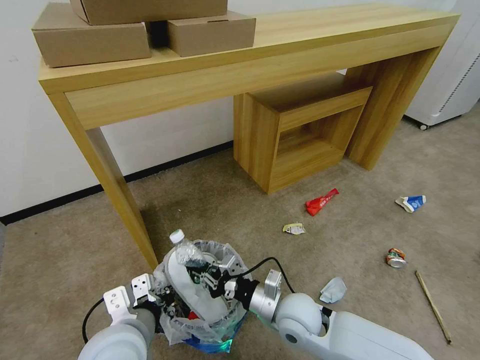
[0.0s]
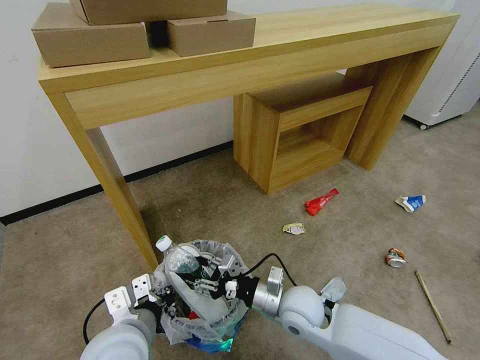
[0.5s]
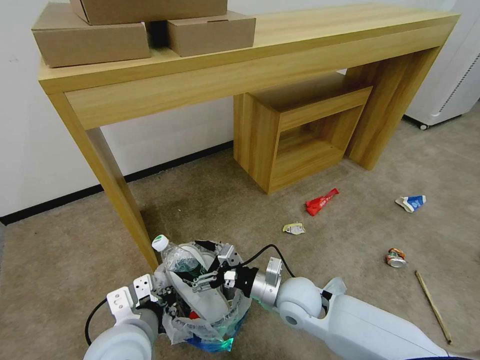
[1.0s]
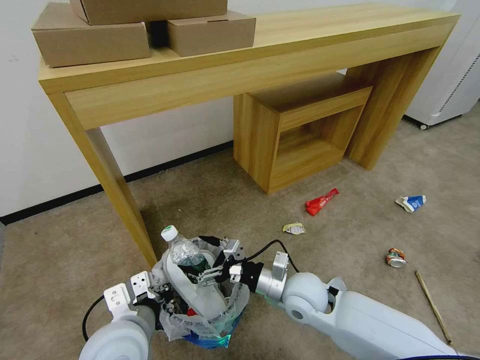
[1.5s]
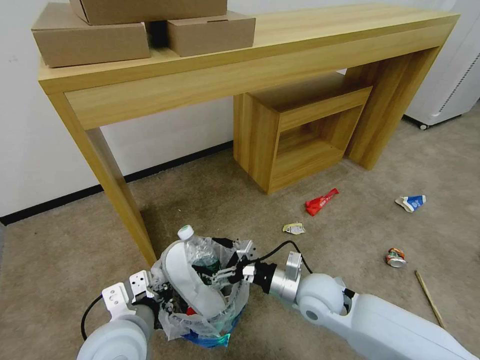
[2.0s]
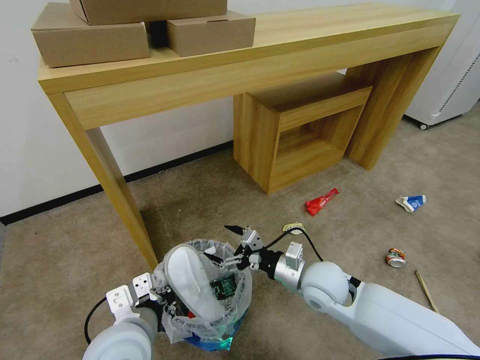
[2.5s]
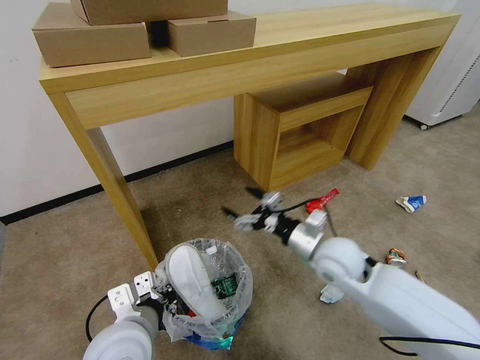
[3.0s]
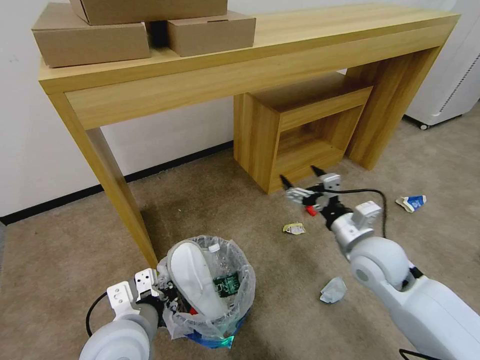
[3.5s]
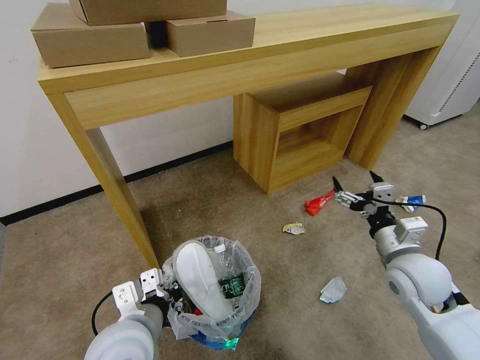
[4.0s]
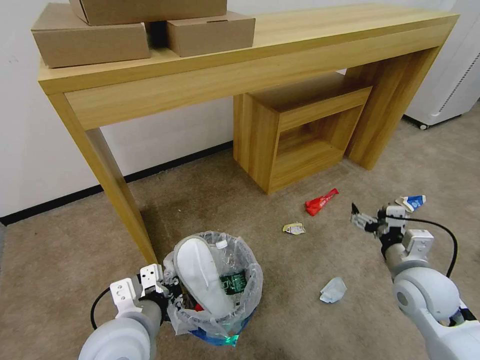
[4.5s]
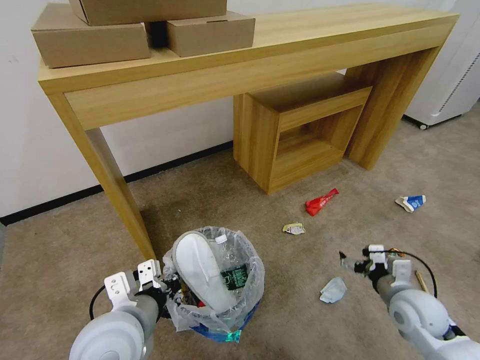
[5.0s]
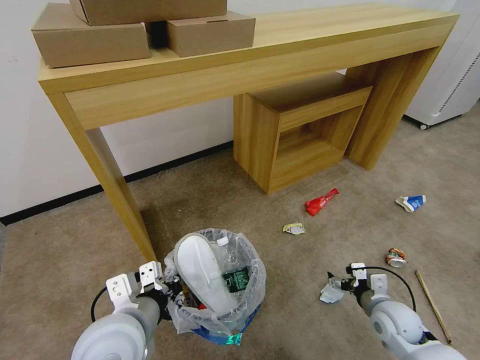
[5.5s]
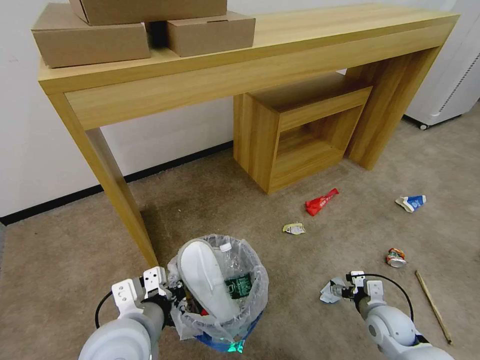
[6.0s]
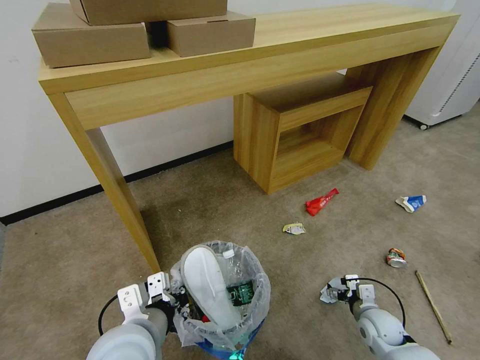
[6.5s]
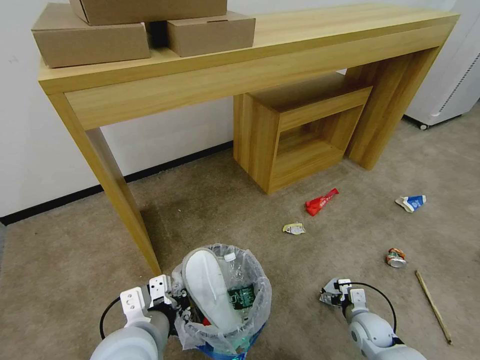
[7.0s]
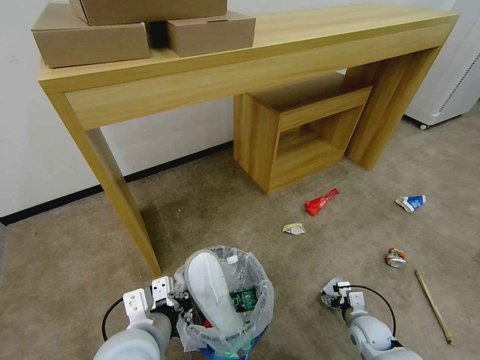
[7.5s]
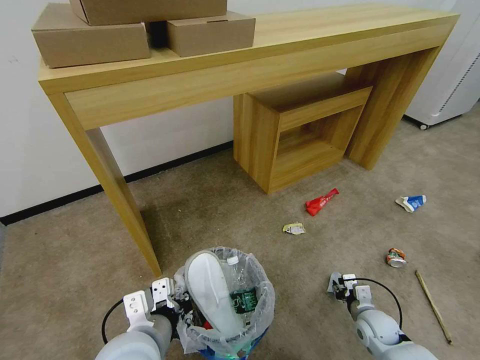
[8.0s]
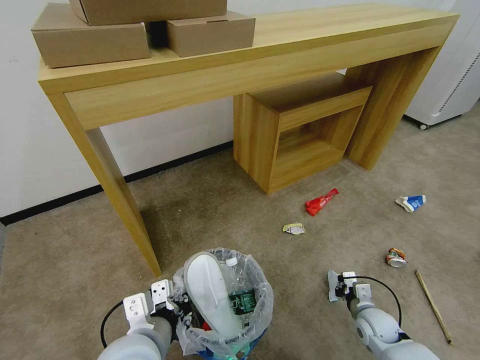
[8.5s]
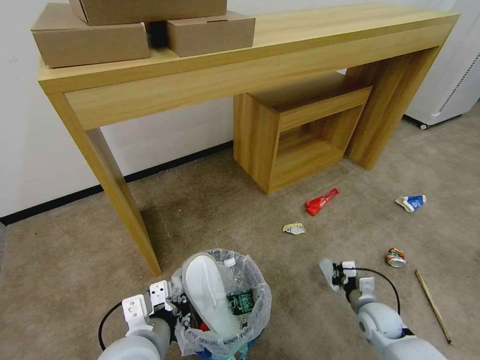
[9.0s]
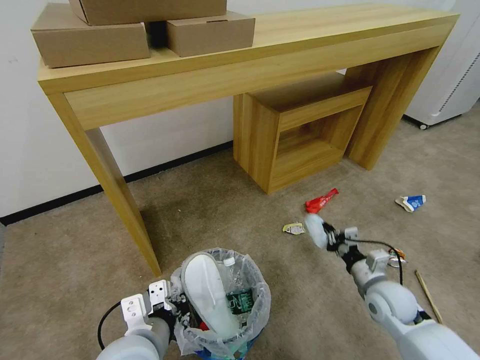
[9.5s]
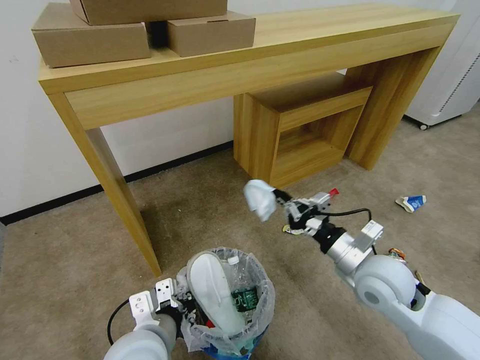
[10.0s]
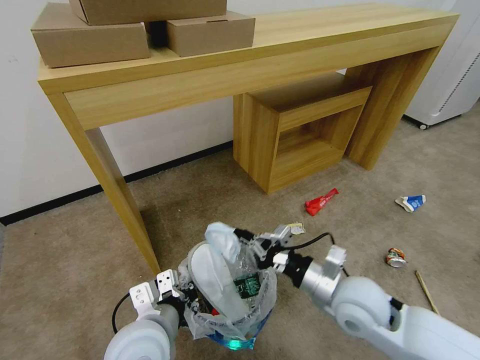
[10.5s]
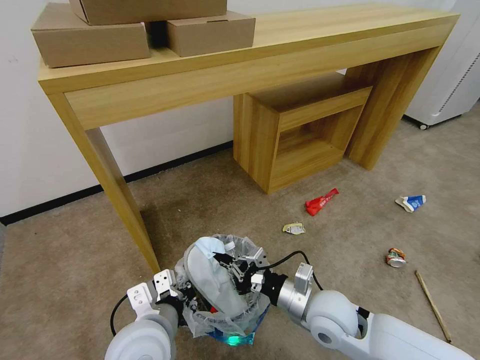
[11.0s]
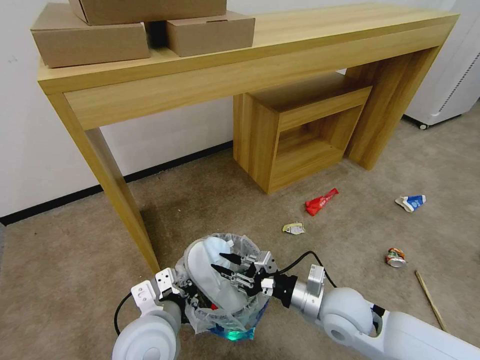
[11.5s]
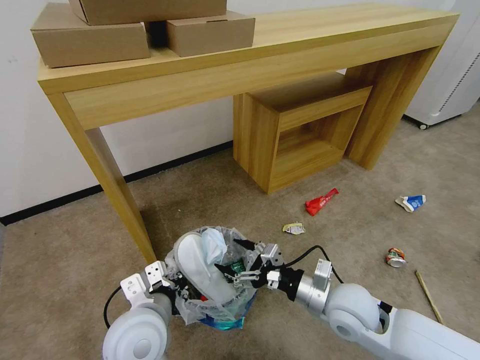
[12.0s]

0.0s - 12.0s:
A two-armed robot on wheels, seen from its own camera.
Task of the whole recording: Pick up the trash bin and place the garbage on the floor into it.
0.0s - 2.0s: The right gripper shifts by some 5 cm, and opens up.
2.0s - 4.0s: The right gripper moves to the right and upward, roughly 20 cm.
4.0s - 6.0s: The right gripper goes approximately 20 cm downward.
6.0s - 8.0s: The right gripper heads downward, covering some 5 cm, and closes.
8.0s - 10.0s: The right gripper moves upward, about 25 cm, and closes.
10.0s - 12.0s: The right gripper goes roughly 5 cm downward, and opens up.

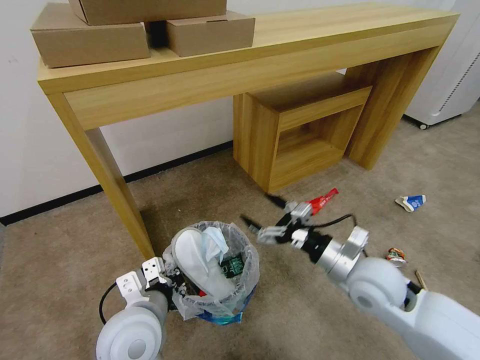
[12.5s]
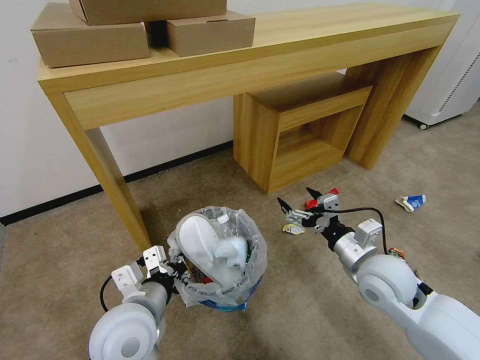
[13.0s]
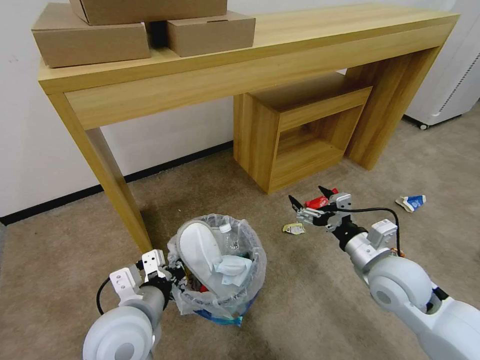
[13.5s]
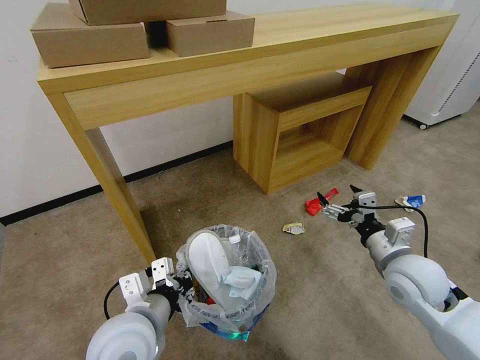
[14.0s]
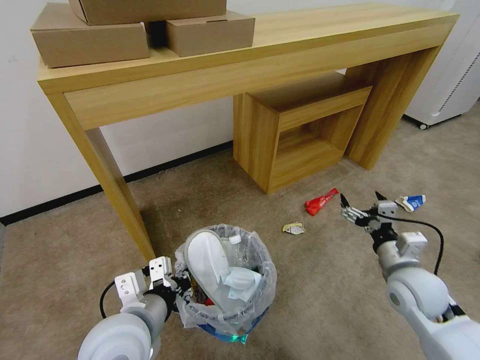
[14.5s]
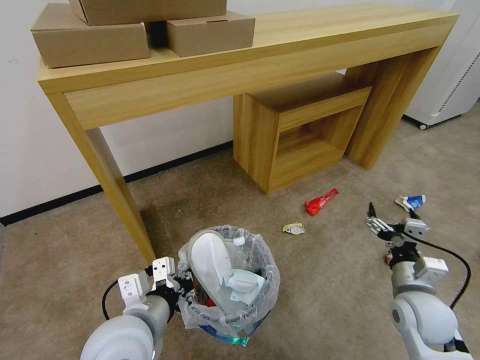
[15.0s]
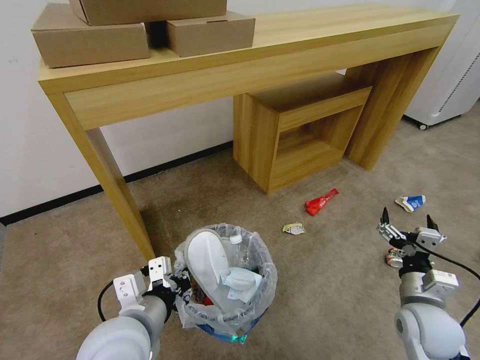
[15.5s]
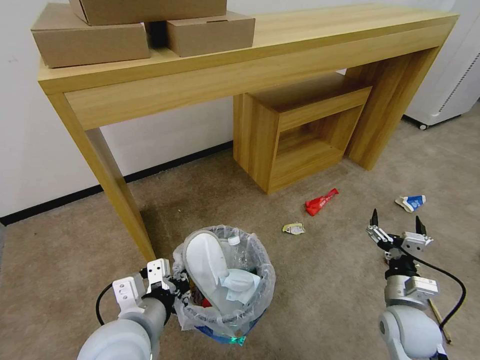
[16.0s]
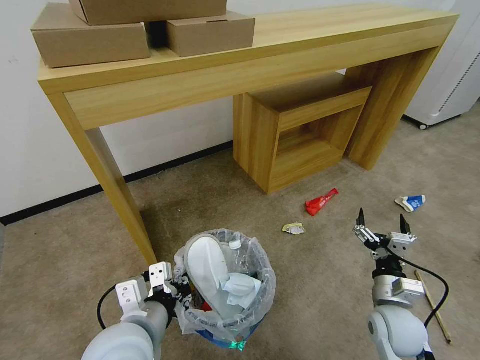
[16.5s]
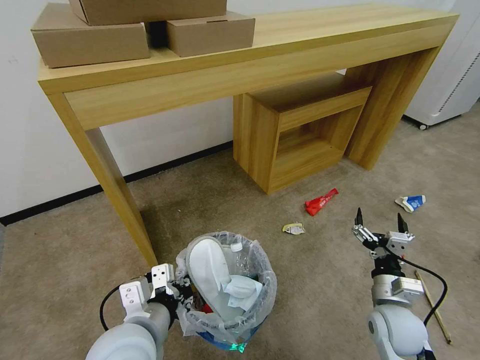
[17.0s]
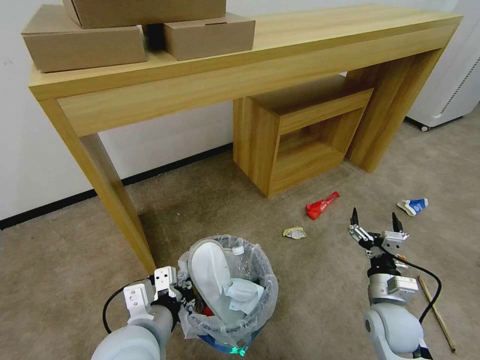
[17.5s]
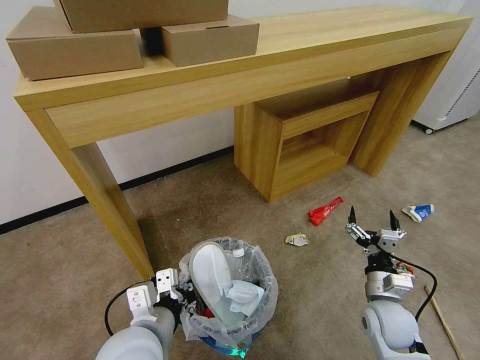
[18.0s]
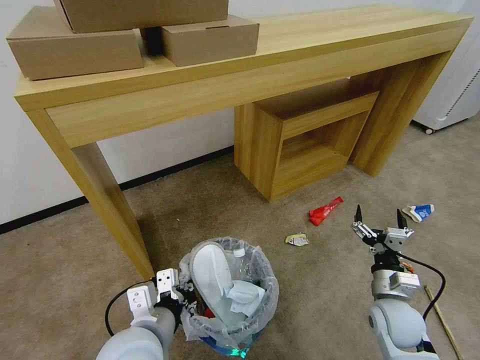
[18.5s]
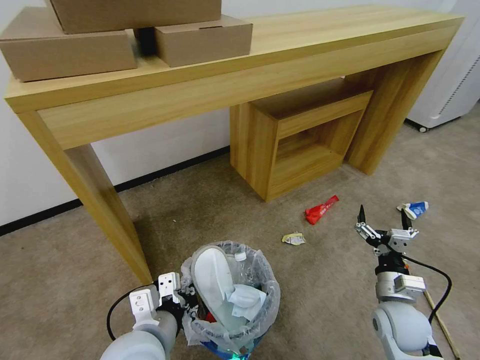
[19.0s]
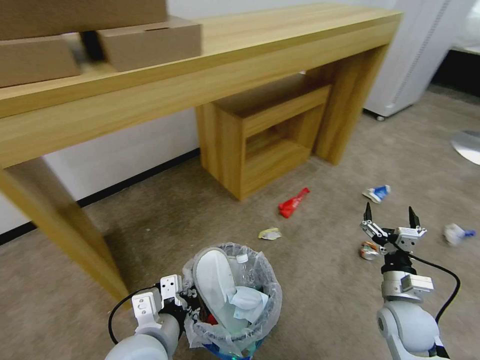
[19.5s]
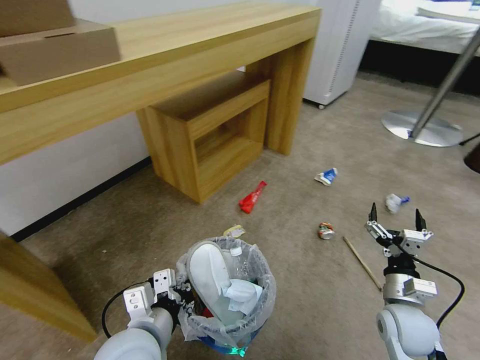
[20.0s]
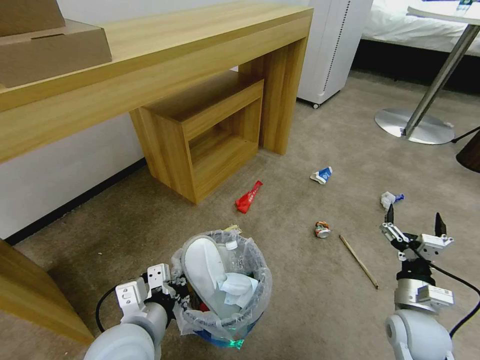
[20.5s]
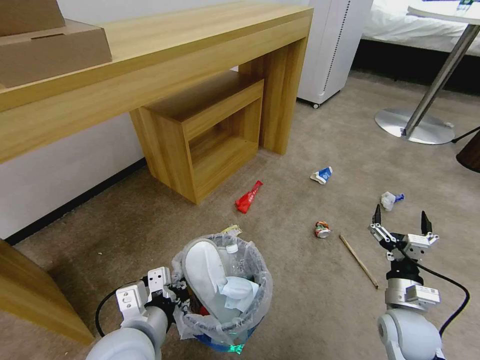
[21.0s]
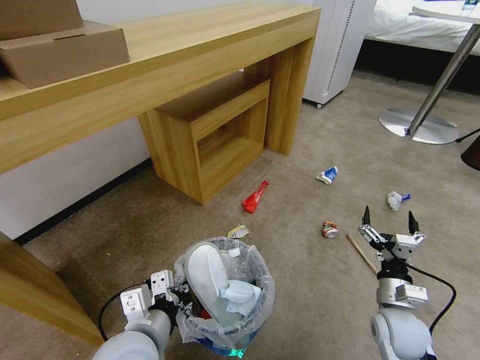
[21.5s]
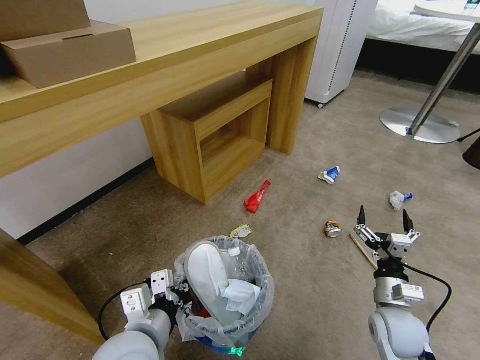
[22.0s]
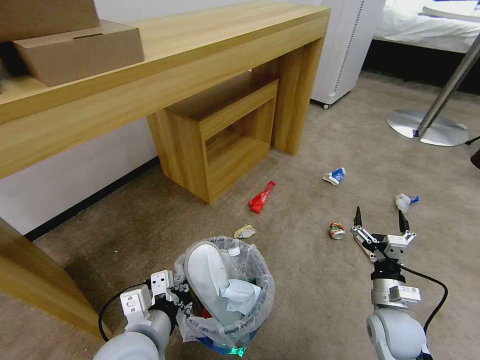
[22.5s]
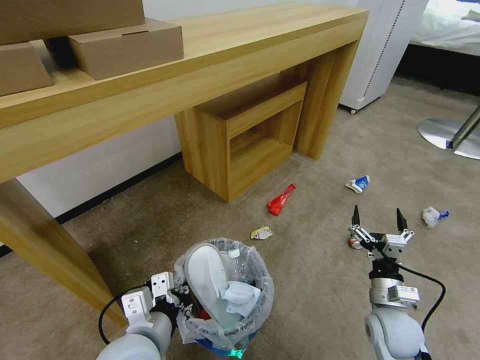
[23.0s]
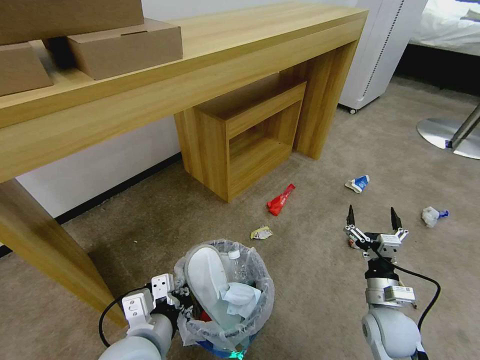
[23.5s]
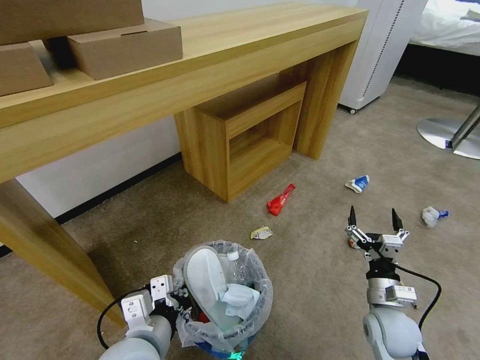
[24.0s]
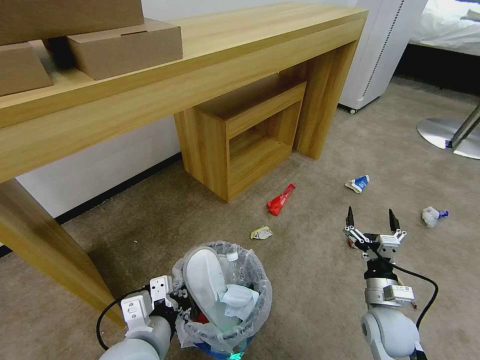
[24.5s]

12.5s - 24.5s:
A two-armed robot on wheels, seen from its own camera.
Task of the whole recording: Pick up the trash bin and place the garbage on the floor into it.
12.5s - 14.5s: The right gripper heads to the right, covering about 10 cm.
14.5s - 16.5s: The right gripper heads downward and backward, covering some 10 cm.

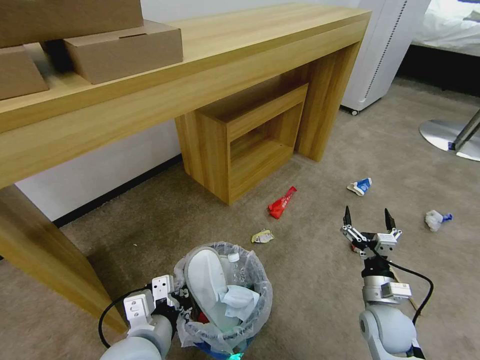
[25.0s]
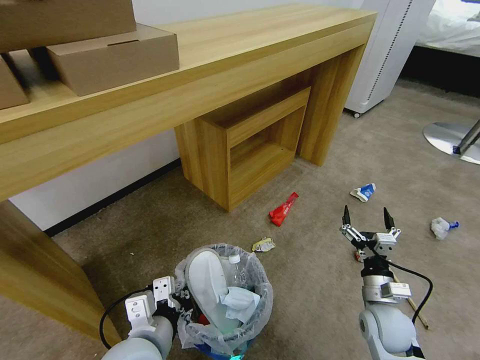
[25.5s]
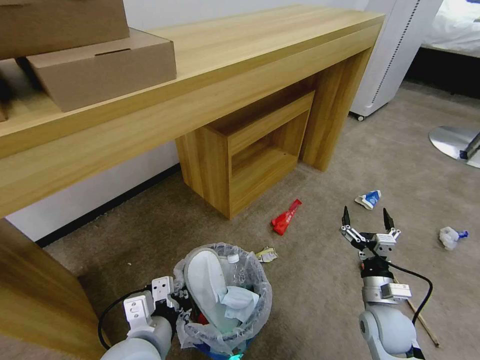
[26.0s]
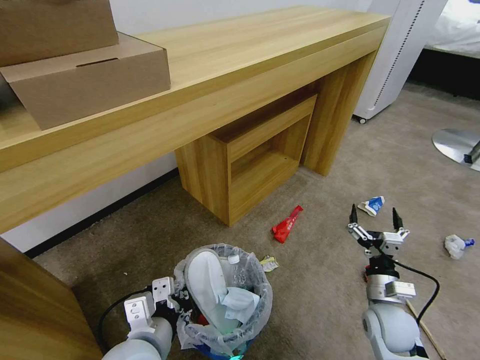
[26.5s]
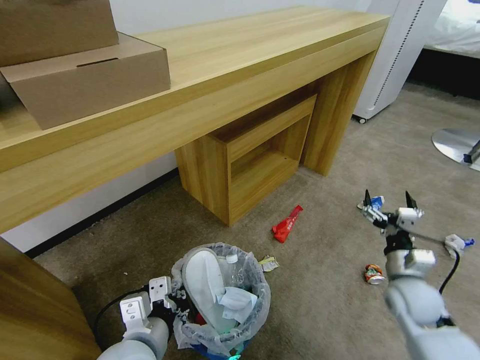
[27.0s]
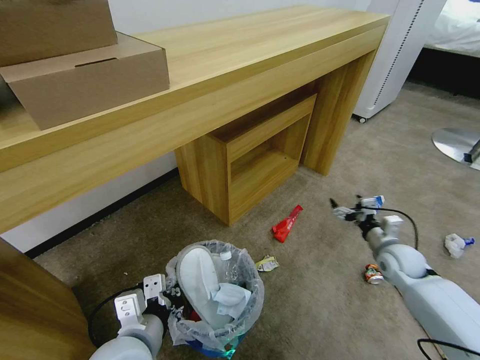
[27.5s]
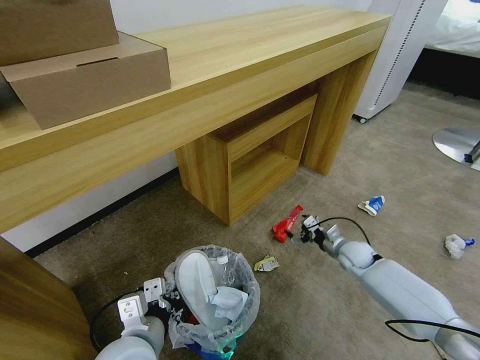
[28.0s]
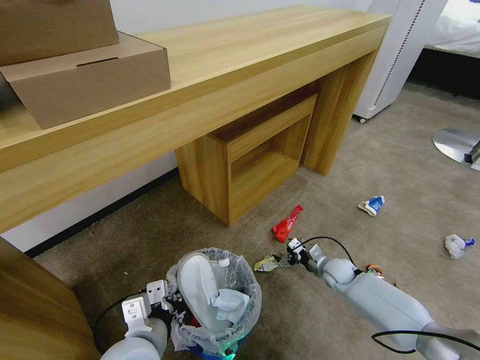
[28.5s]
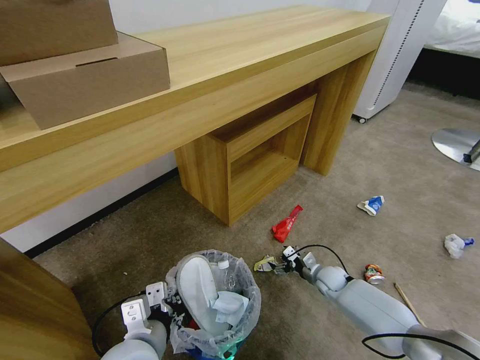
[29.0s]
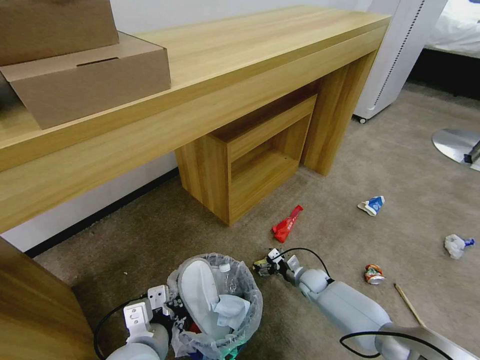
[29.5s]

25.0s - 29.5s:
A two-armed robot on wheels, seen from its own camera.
Task of the whole recording: Pick up the trash bin and place the garbage on the floor into it.
25.0s - 27.0s: The right gripper changes place by some 5 cm.
27.0s - 29.5s: The right gripper goes about 25 cm downward, forward and to the left.
